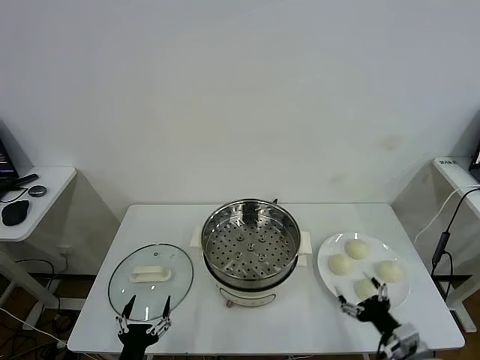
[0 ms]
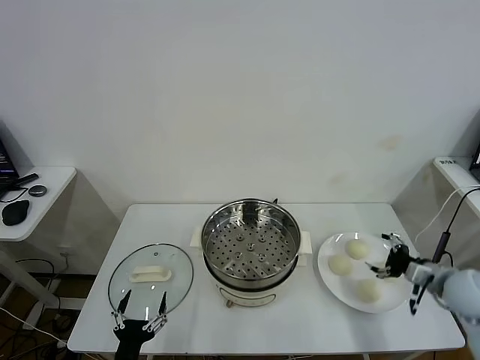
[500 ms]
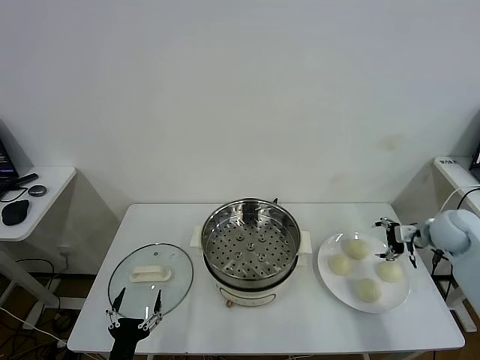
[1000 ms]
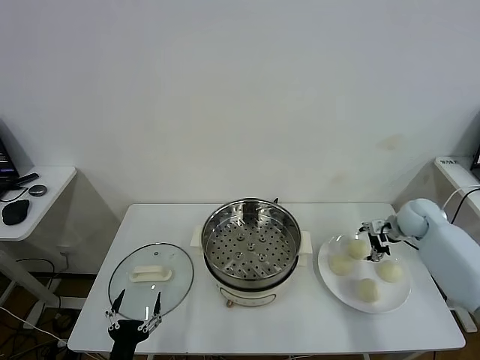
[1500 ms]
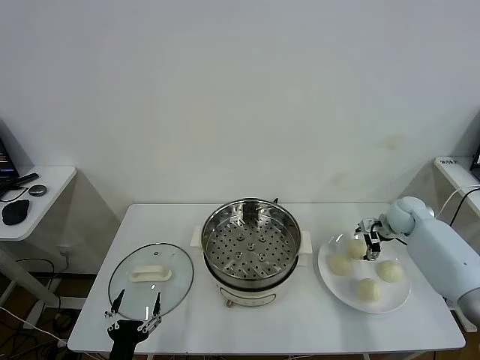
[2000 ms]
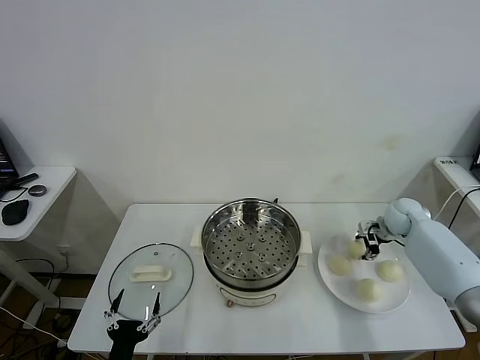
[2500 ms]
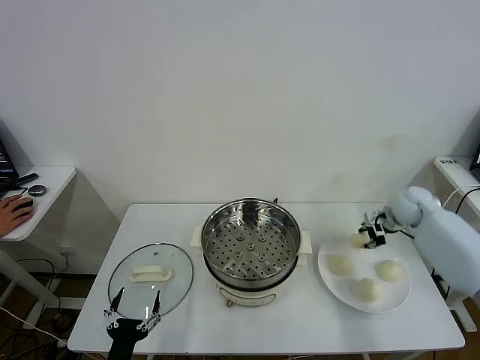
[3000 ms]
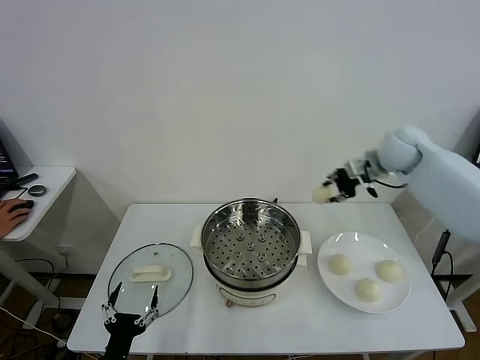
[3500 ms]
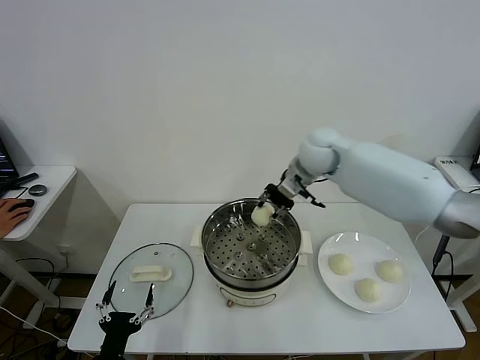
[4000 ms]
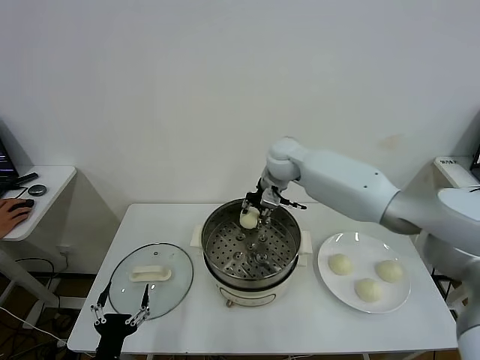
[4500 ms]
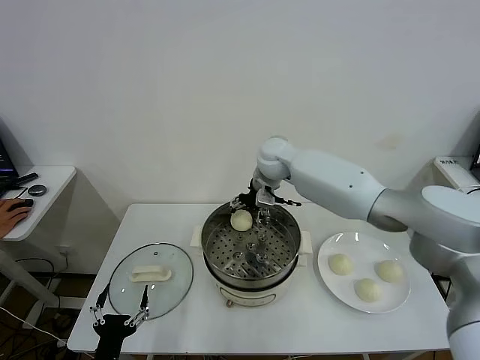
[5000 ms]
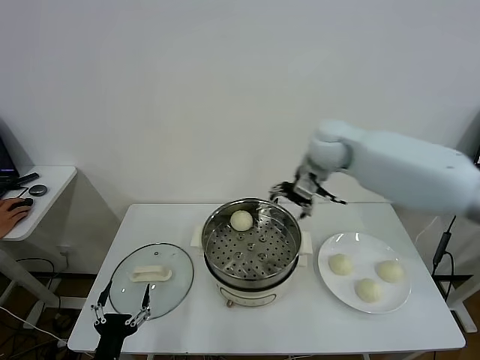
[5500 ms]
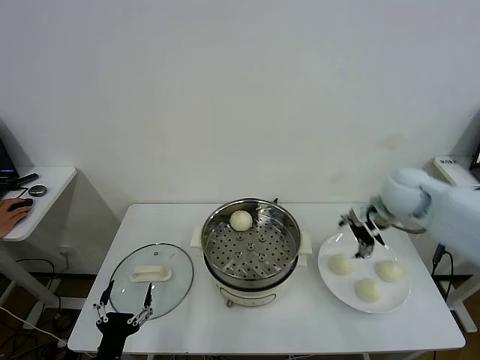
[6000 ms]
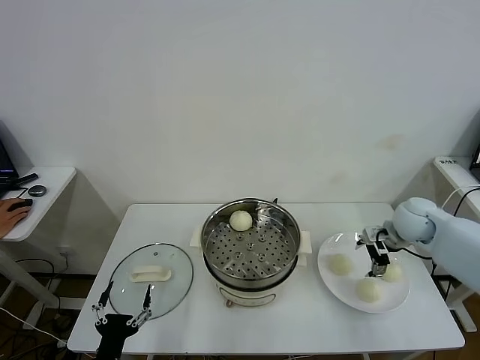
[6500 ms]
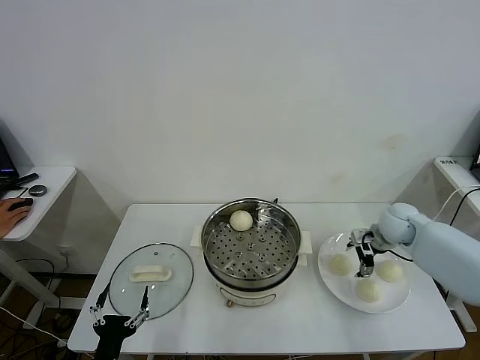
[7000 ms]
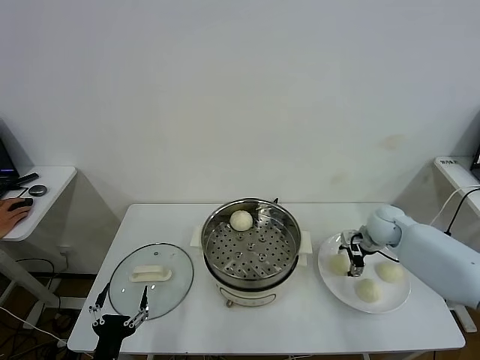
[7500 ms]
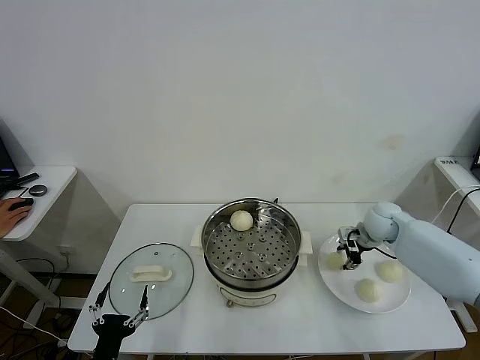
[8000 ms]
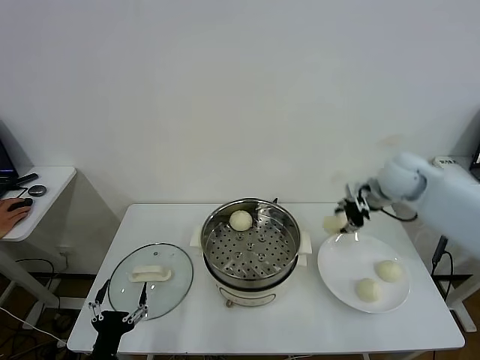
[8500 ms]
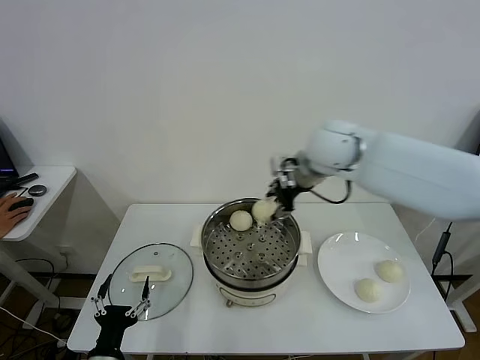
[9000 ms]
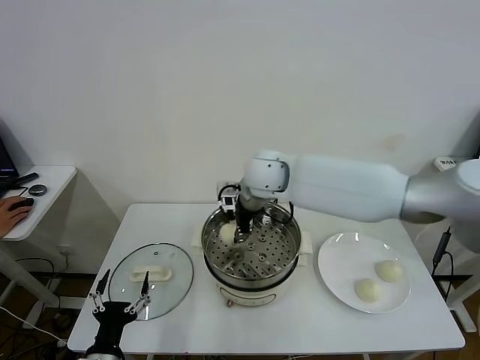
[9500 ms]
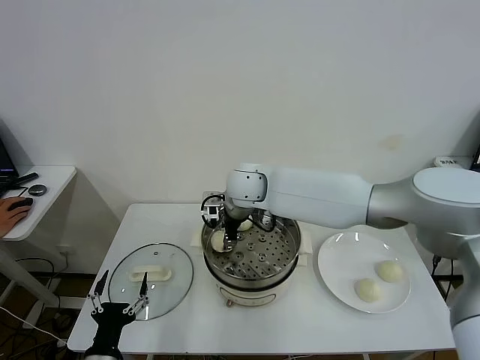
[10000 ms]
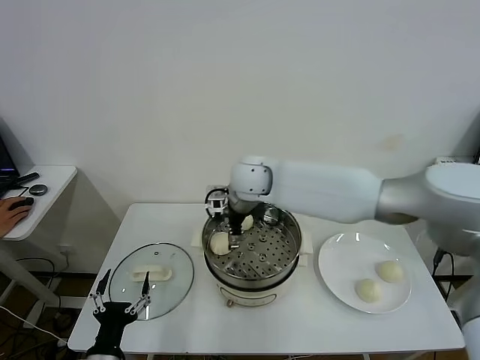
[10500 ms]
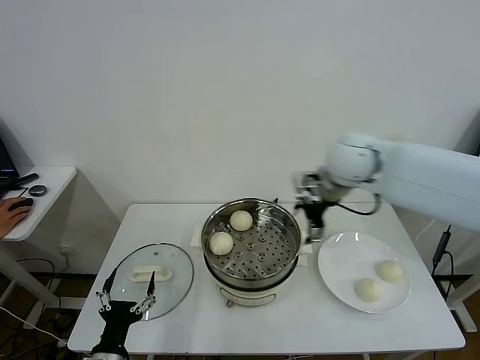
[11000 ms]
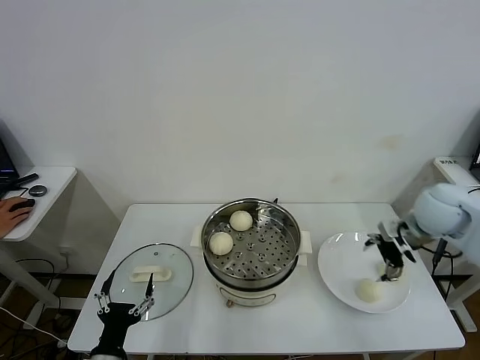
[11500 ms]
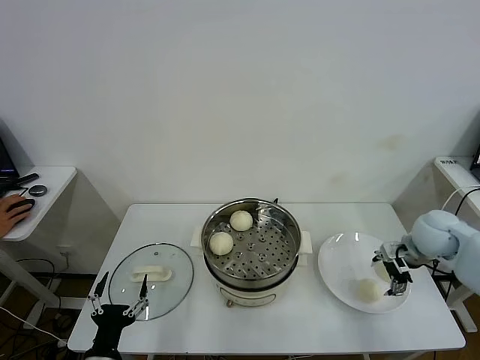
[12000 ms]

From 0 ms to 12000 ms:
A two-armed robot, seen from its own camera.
Task of the whole recording: take steamed baozi put them in steamer.
Step, from 0 ms to 2500 ms: Grasp the baozi in the plate with right gripper.
Step, from 3000 ms to 5000 ms: Place the baozi on the steamer with right gripper.
Step, from 5500 ms to 7500 ms: Grasp the baozi in the plate with right gripper.
Step, from 8000 ms to 10000 ms: Place the baozi on the steamer with right gripper.
From 2000 ms to 4000 ms: The right gripper shifts about 35 cm to the left and upward, and closes up.
From 4000 ms to 6000 ms: The right gripper moves to the right and backward, roughly 25 cm, and opens its fingers.
From 6000 ms to 8000 ms: The right gripper moves downward, roughly 10 cm, and closes its fingers.
From 8000 ms to 10000 ms: The right gripper heads to the left, covering some 35 cm.
From 10000 ms to 12000 ms: The right gripper is displaced to the right by roughly 40 cm, and opens its fingers.

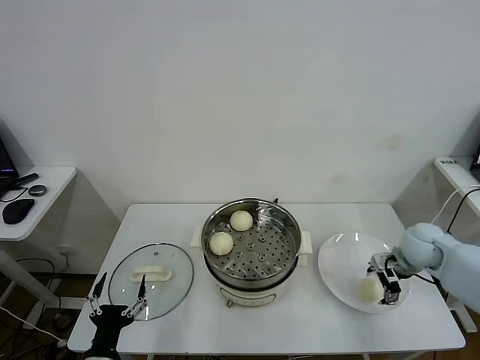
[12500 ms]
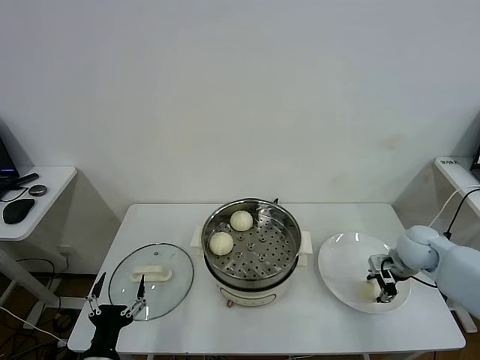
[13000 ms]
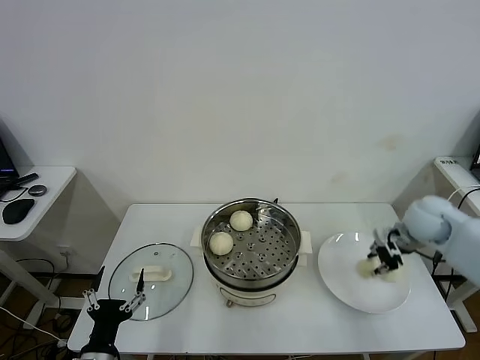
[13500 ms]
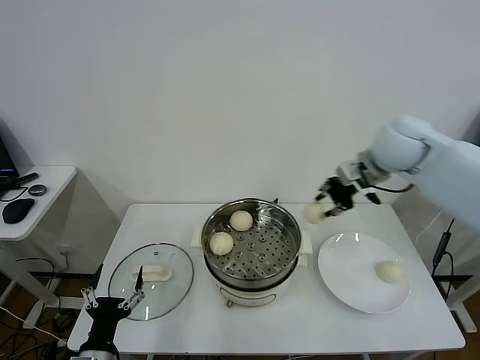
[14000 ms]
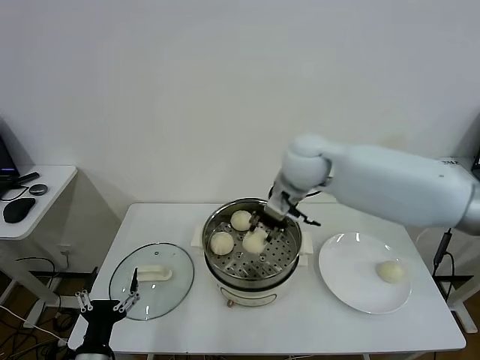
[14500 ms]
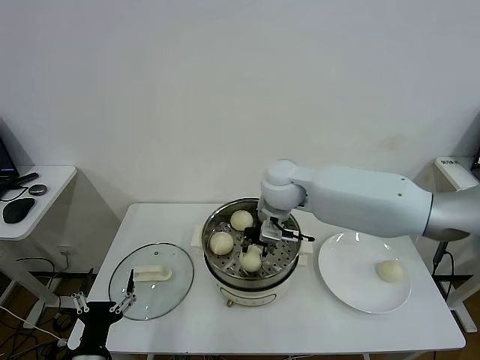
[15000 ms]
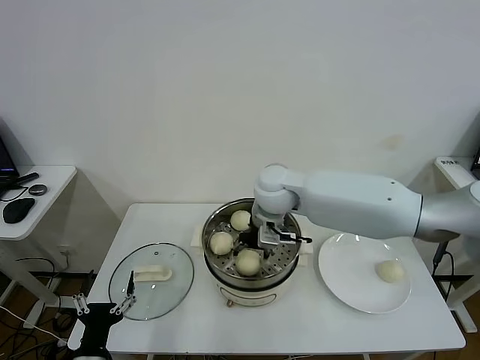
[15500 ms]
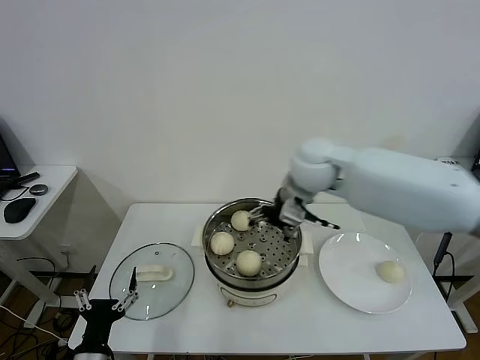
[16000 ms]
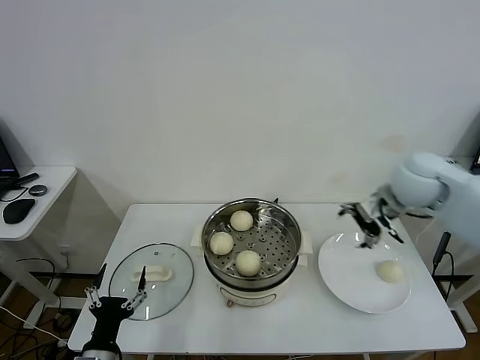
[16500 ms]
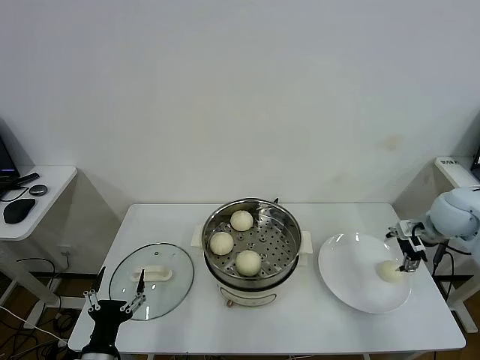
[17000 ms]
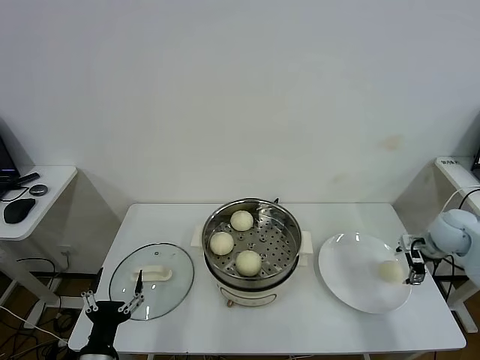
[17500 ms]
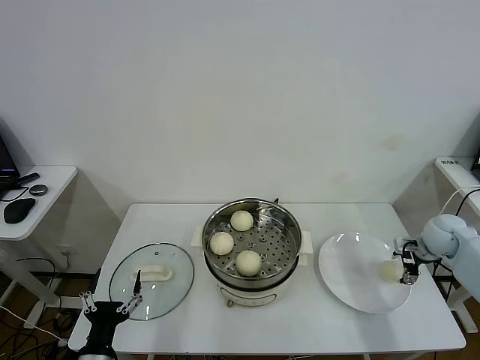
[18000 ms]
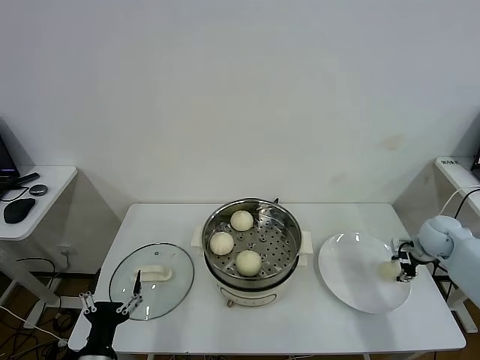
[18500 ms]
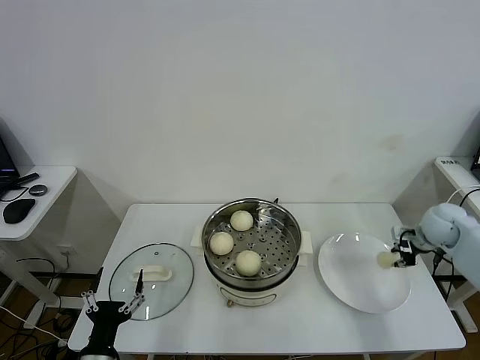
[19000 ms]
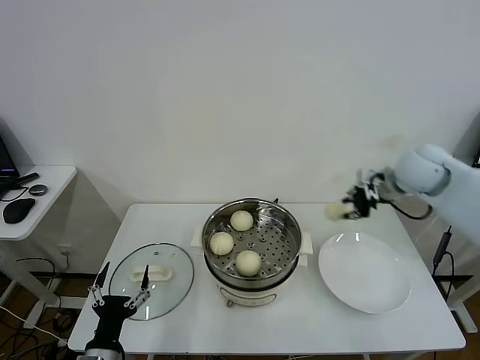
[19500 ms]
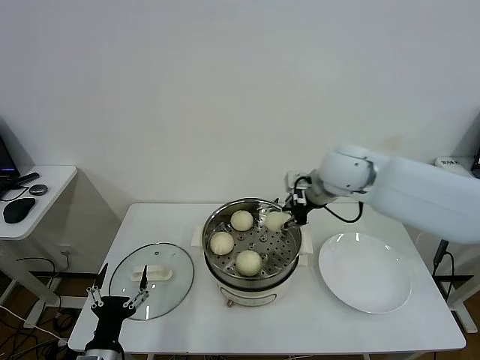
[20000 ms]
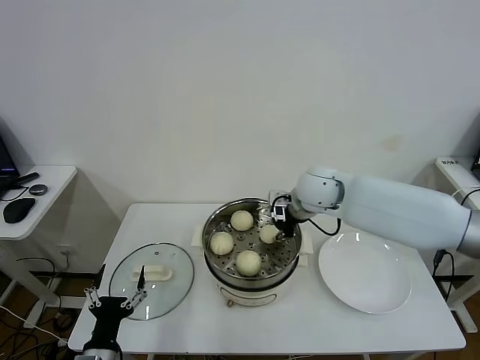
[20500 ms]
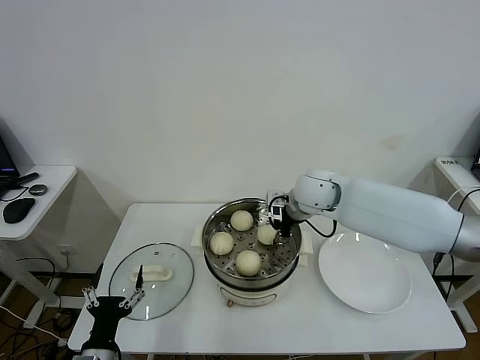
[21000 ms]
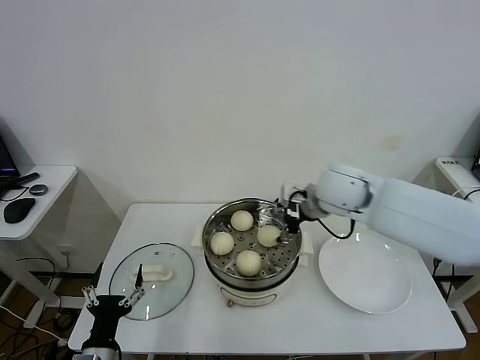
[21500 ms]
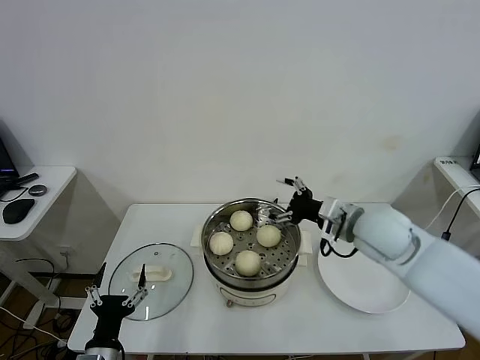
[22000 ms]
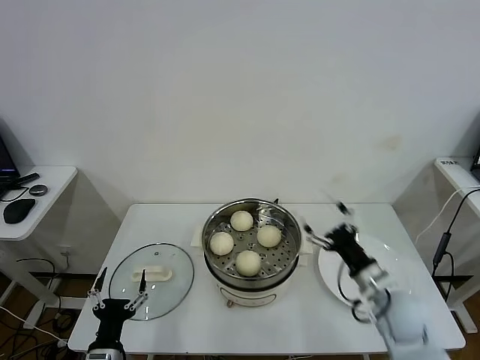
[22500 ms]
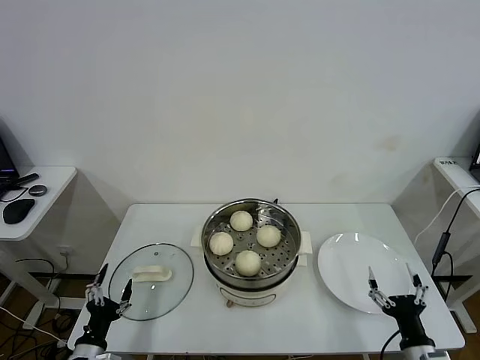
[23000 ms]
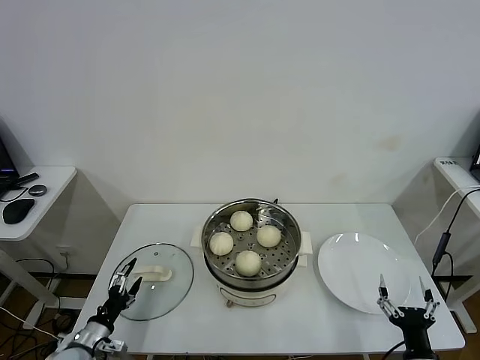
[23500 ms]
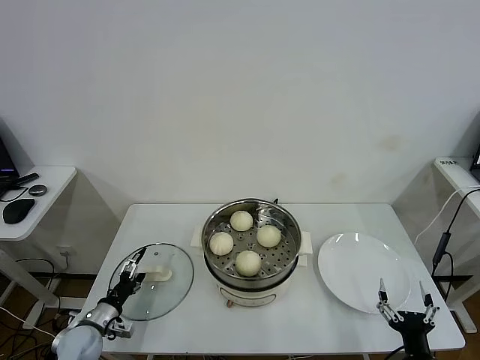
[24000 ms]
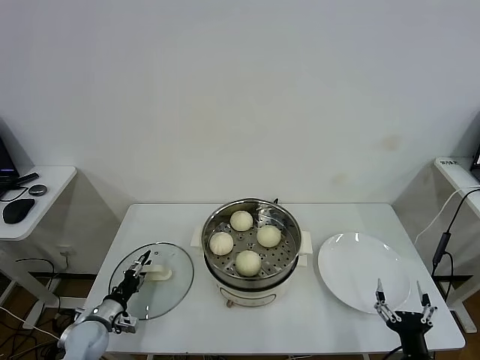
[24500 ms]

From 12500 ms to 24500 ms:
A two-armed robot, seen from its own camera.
Task of the whole recording: take steamed baozi put them in steamer.
Step, from 13500 ms to 15500 ms: Place the baozi on the steamer with right gripper.
Step, from 16000 ms to 18000 ms: Grasp the baozi in the plate with right gripper.
Step, from 18500 ms to 21000 ms: Place the baozi on the steamer with right gripper.
From 12500 ms to 14500 ms: The right gripper goes some 35 cm to the left and upward, and closes.
From 14500 ms to 16500 ms: The right gripper heads to the right, covering about 25 cm, and opens.
From 16500 ms to 18500 ms: The right gripper travels downward and to the right by approximately 25 cm, and closes up.
From 18500 ms to 20500 ms: The right gripper moves to the left and upward, some 35 cm, and closes up.
From 20500 ms to 22500 ms: The right gripper travels backward, downward and to the right by roughly 30 cm, and opens.
From 22500 ms to 24500 ms: The right gripper moves backward and downward, approximately 20 cm. Meanwhile the left gripper moves forward, to the left and downward, some 20 cm, and closes.

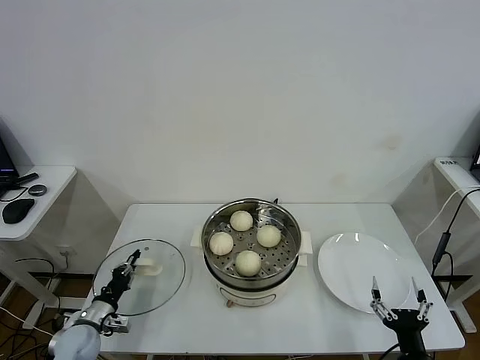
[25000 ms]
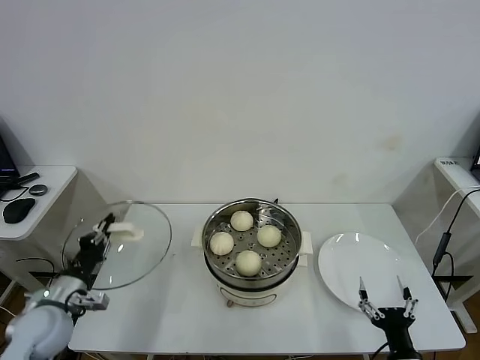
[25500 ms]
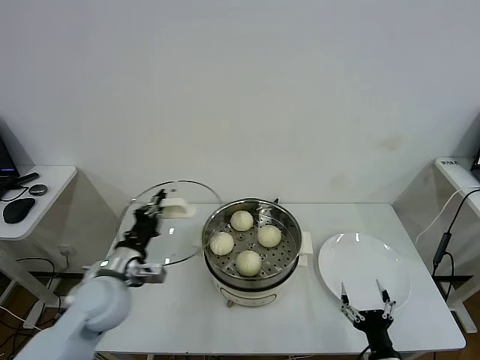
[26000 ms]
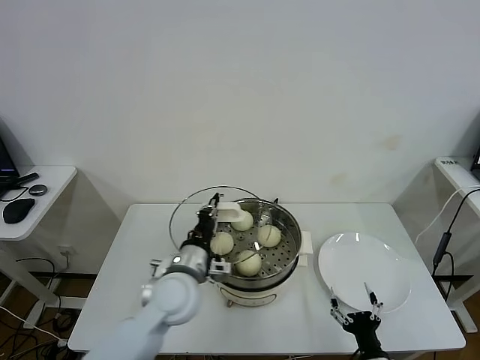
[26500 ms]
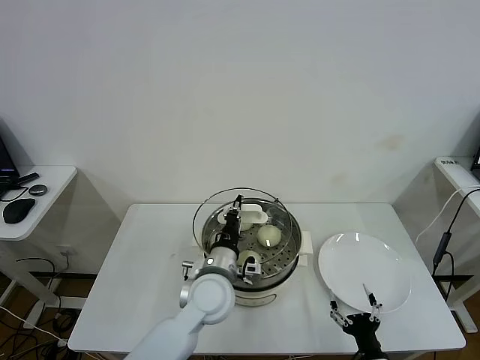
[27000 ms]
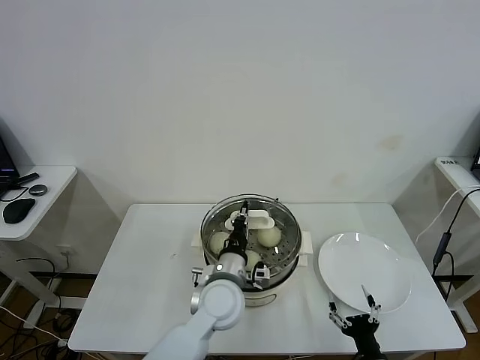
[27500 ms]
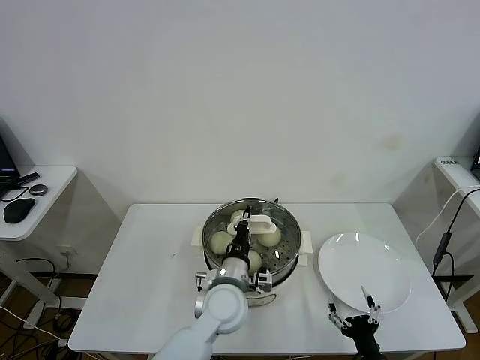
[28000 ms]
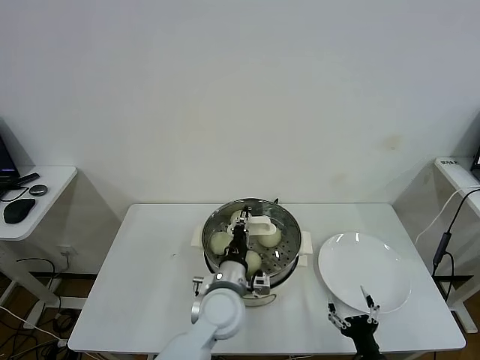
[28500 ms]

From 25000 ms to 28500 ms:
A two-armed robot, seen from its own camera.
Task of the whole recording: take steamed baozi put them in steamer.
From 25000 ms to 27000 ms: The left gripper travels to the right and upward by about 35 cm; the right gripper ends up about 5 cm from where it was.
From 27000 ms to 28500 ms: The grippers make only small movements.
